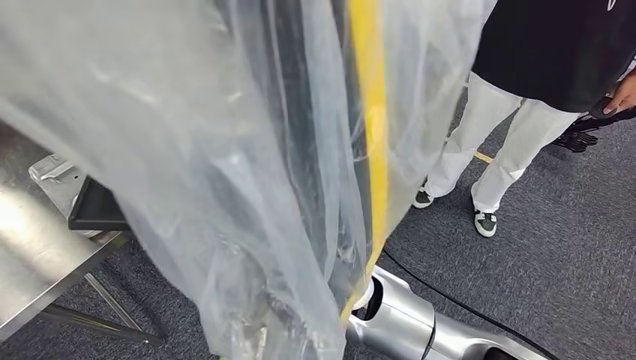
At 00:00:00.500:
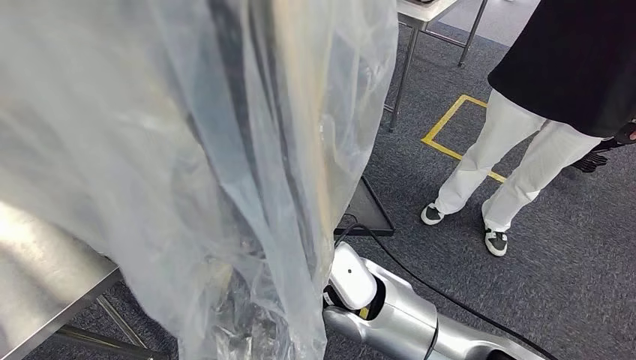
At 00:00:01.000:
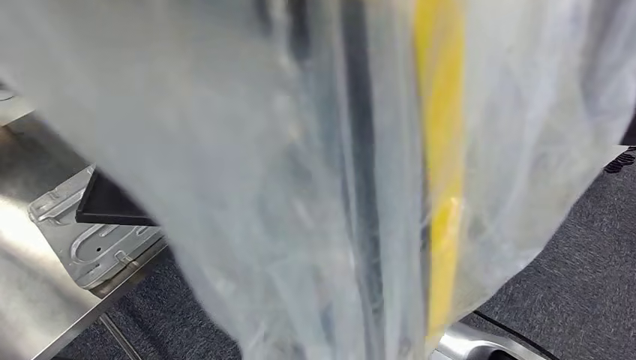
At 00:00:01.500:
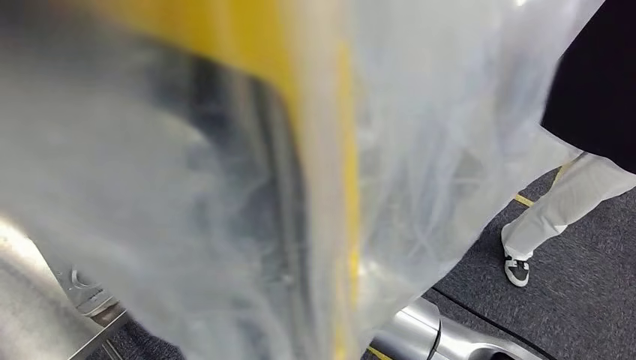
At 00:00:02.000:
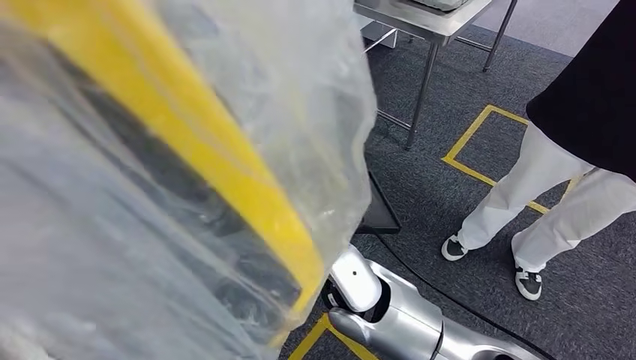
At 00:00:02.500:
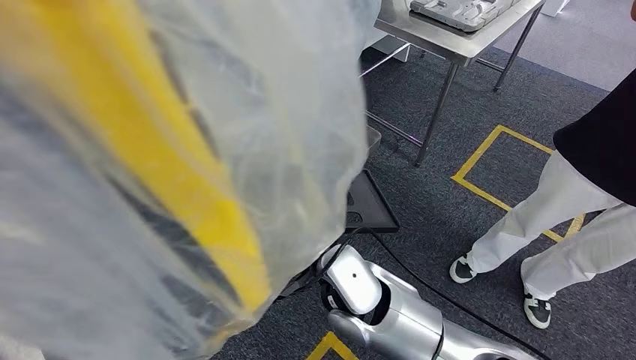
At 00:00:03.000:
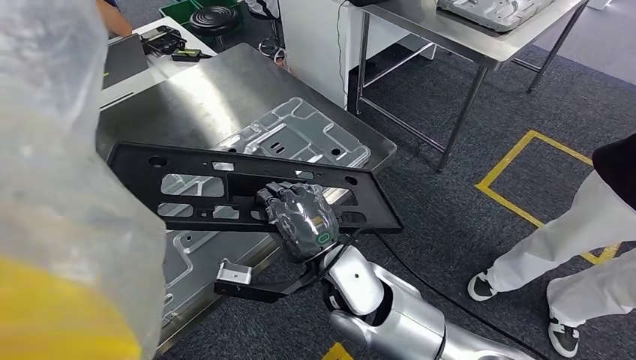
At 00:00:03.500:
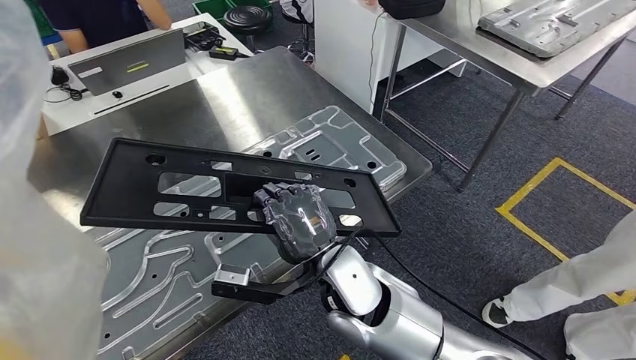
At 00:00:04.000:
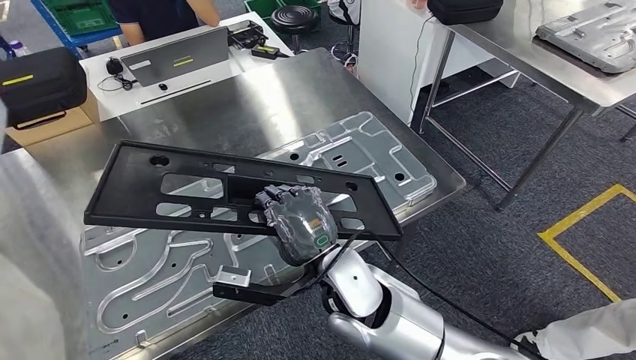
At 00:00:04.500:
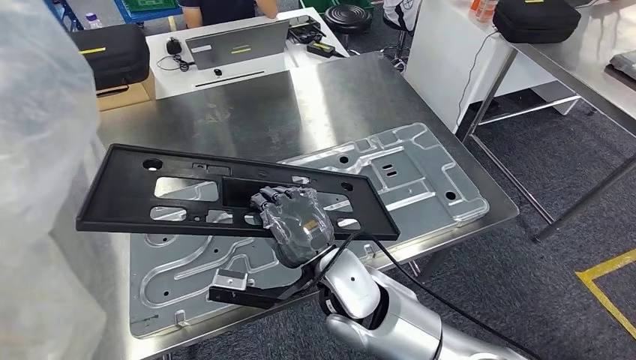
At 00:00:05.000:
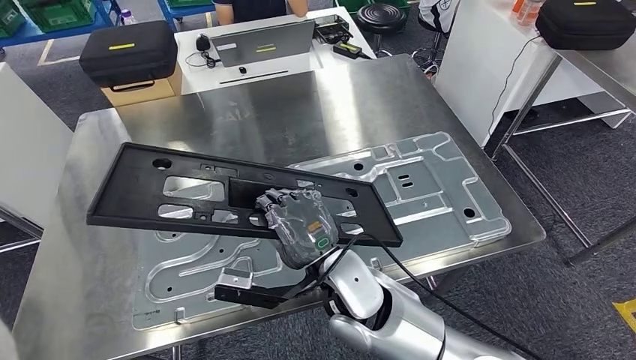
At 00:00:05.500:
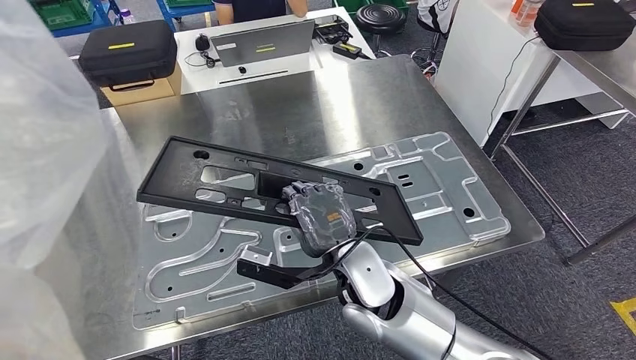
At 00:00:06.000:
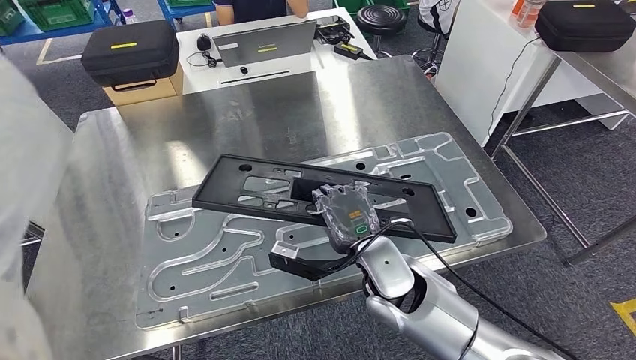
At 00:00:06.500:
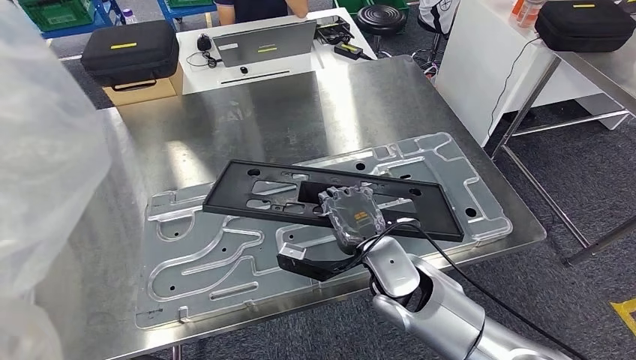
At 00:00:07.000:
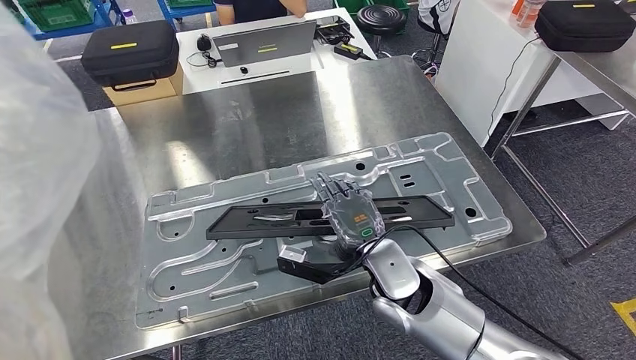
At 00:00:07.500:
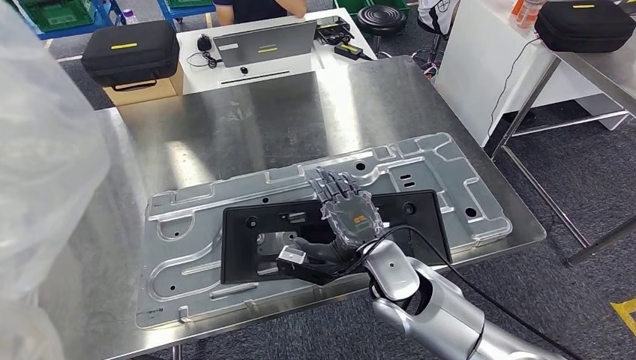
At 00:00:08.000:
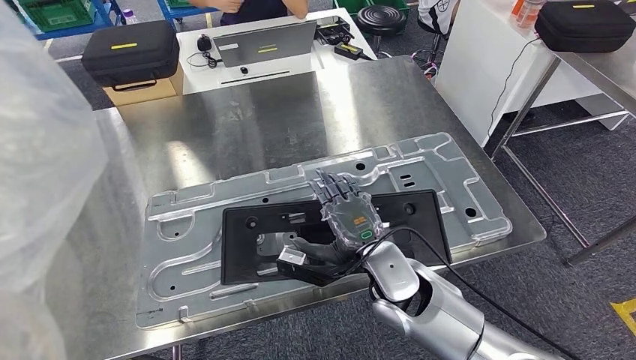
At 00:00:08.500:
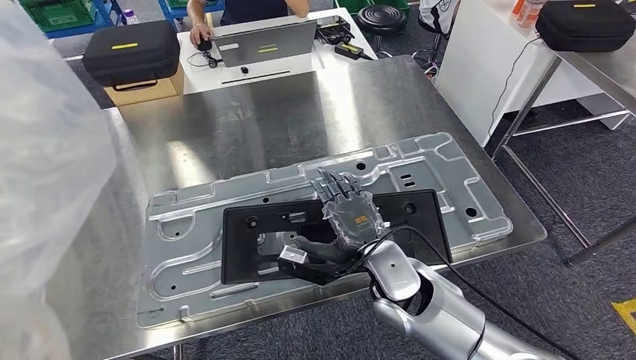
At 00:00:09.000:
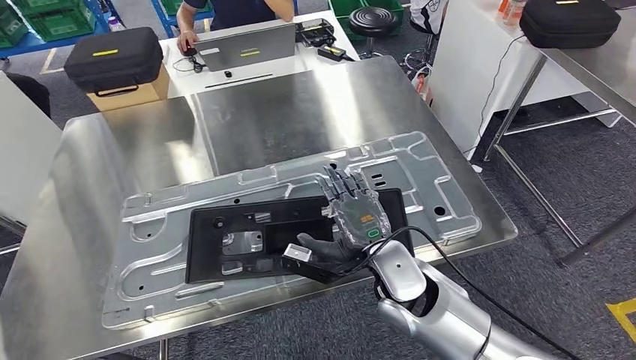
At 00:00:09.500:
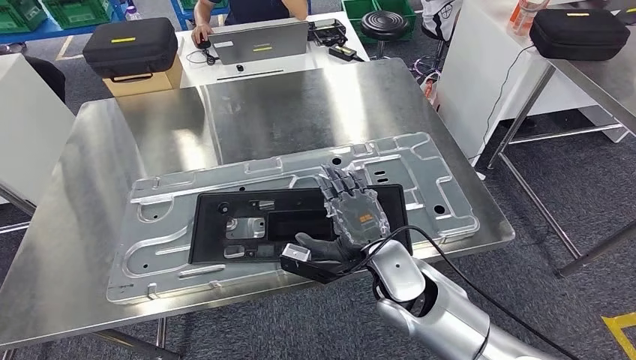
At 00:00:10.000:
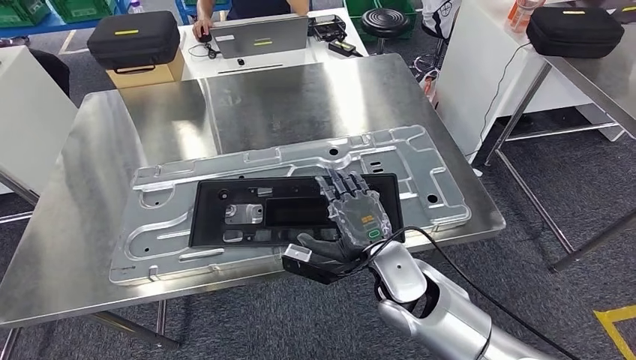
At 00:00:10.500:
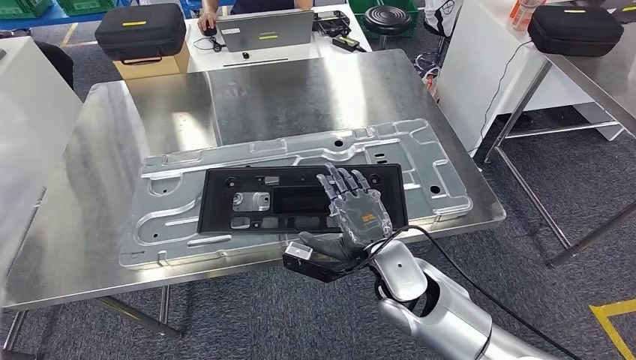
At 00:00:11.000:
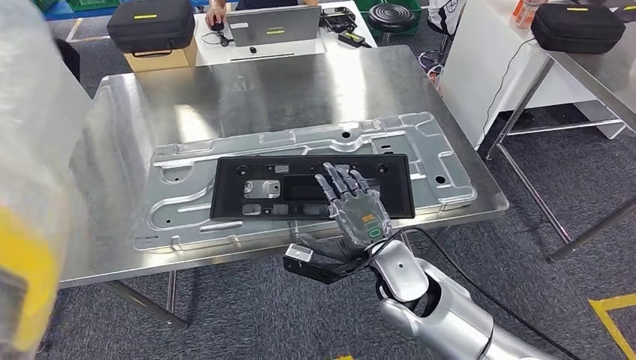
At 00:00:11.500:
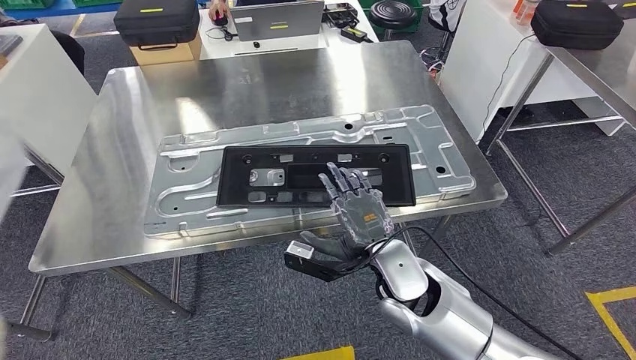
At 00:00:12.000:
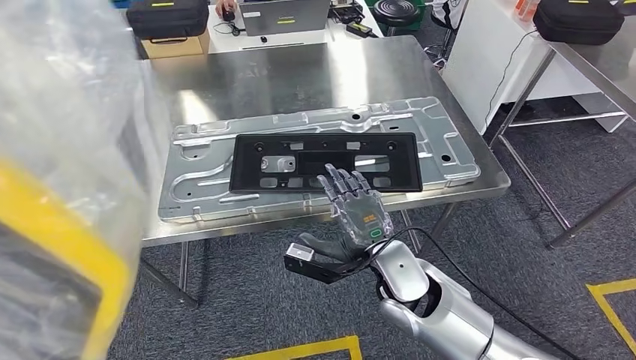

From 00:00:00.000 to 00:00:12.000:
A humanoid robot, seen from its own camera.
Step, from 00:00:03.000 to 00:00:10.000: Insert the large material into the corresponding slot on the workbench.
From 00:00:06.000 to 00:00:08.000: The hands move only a little.

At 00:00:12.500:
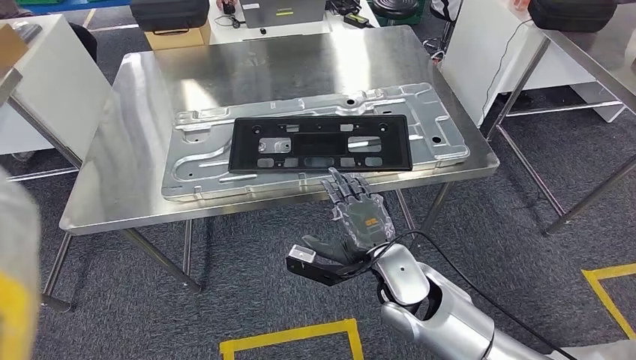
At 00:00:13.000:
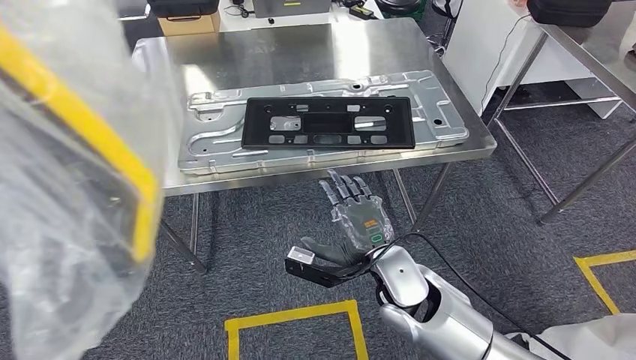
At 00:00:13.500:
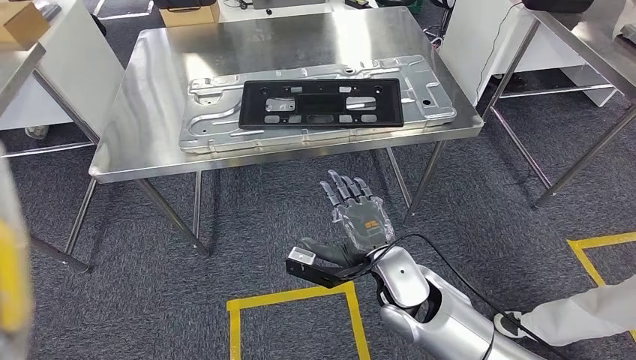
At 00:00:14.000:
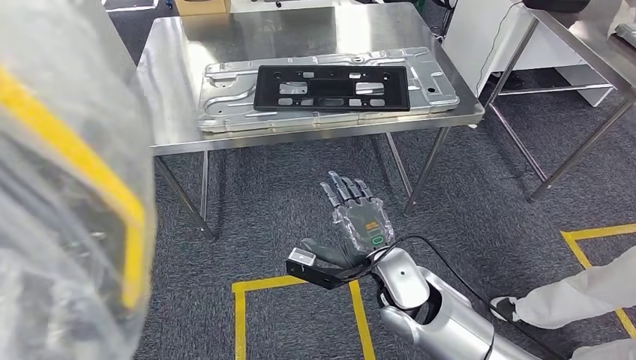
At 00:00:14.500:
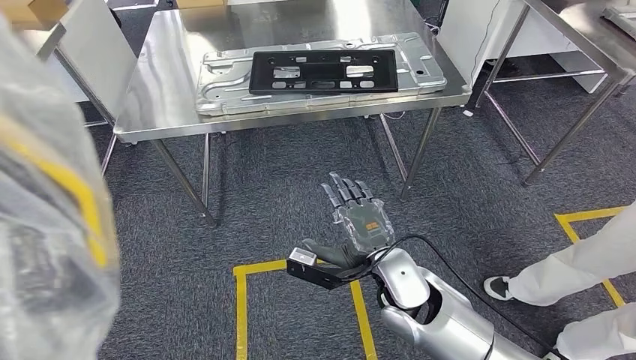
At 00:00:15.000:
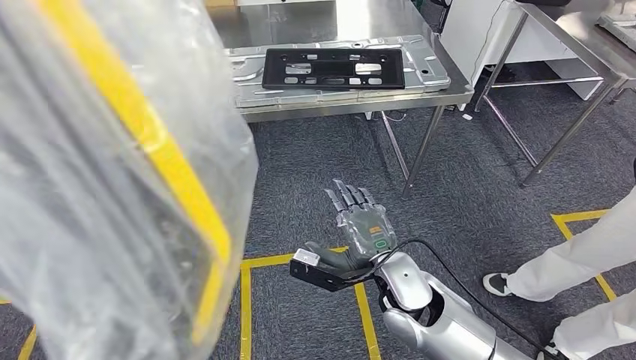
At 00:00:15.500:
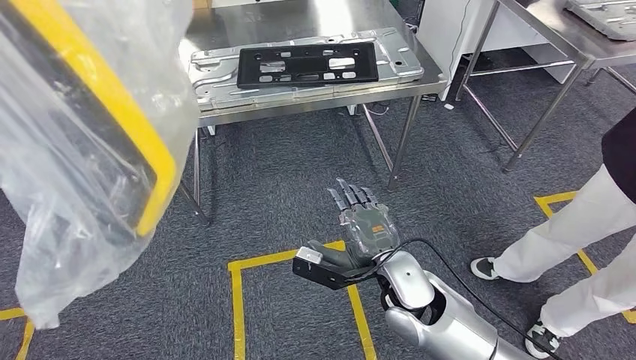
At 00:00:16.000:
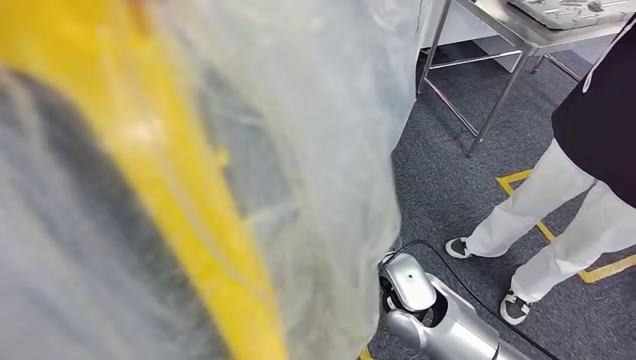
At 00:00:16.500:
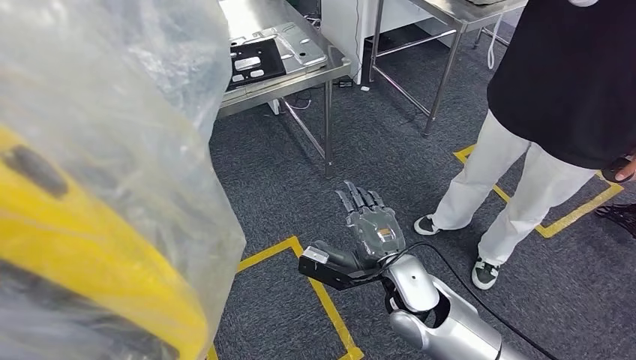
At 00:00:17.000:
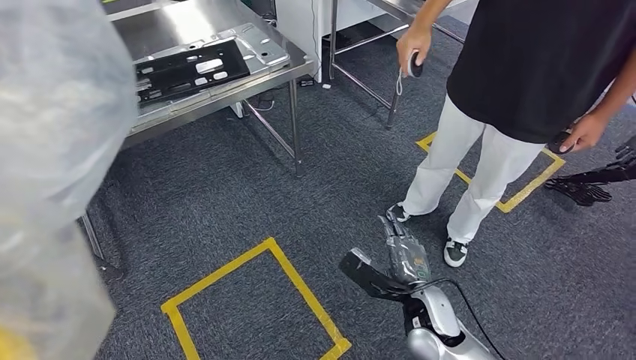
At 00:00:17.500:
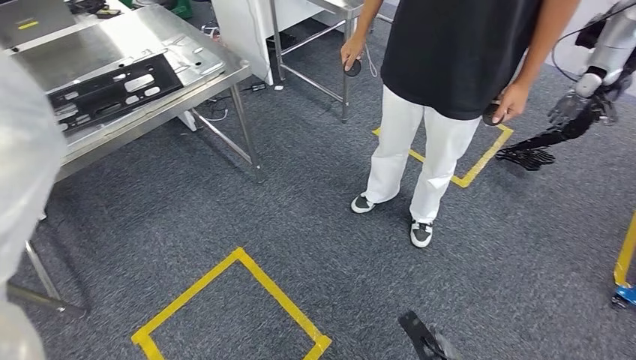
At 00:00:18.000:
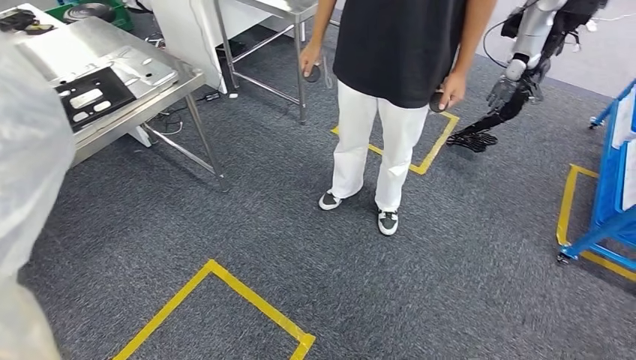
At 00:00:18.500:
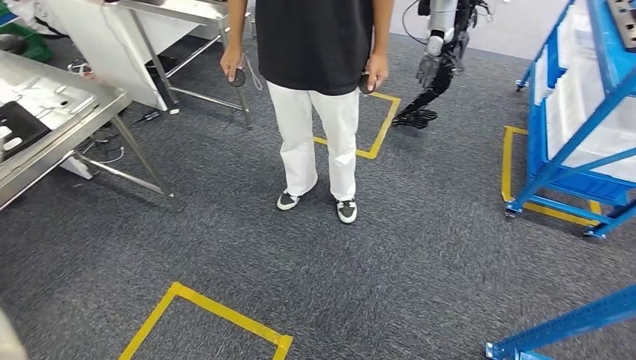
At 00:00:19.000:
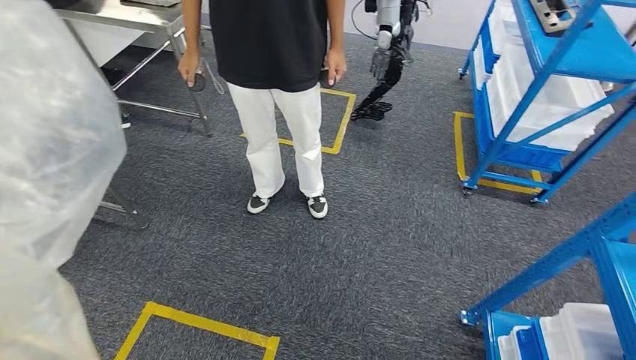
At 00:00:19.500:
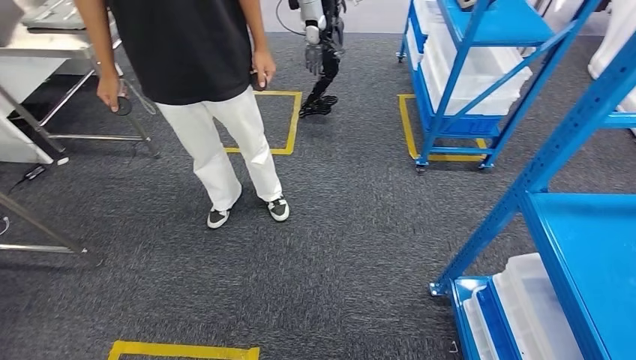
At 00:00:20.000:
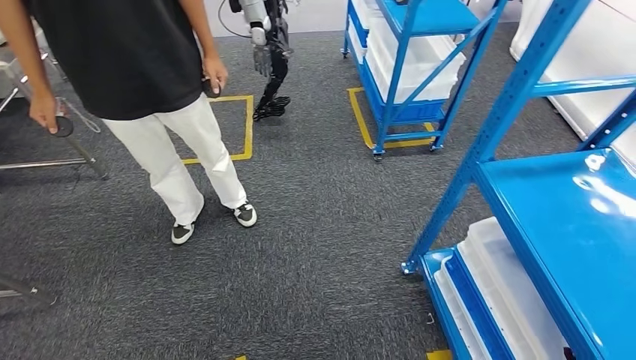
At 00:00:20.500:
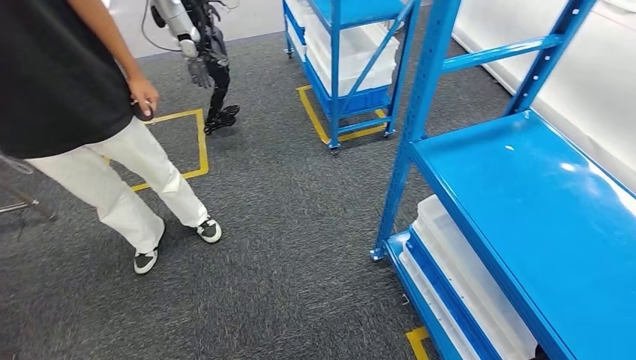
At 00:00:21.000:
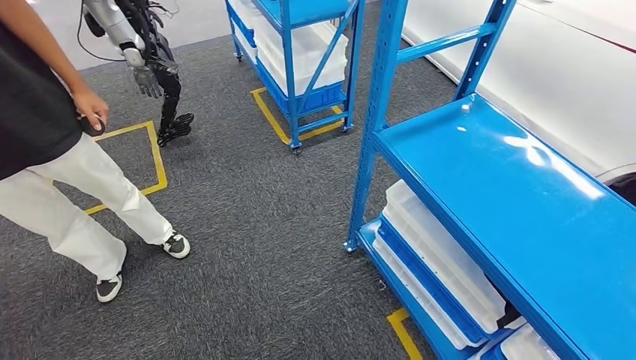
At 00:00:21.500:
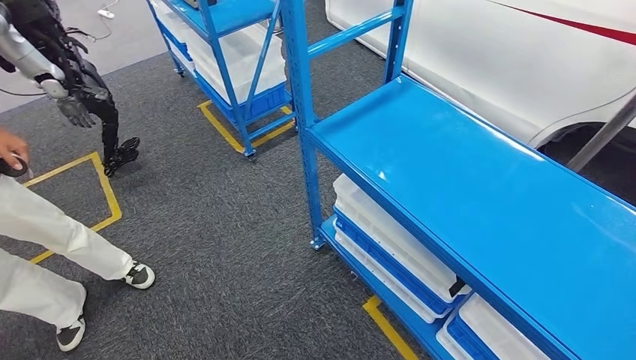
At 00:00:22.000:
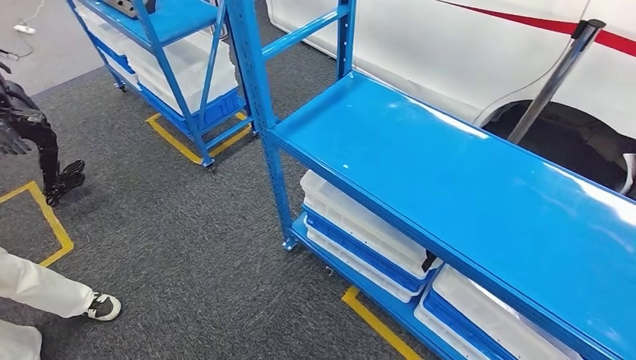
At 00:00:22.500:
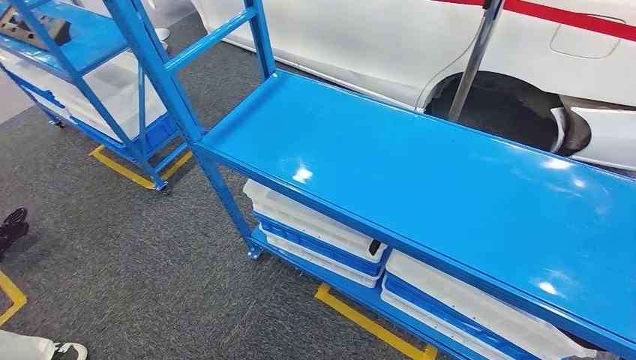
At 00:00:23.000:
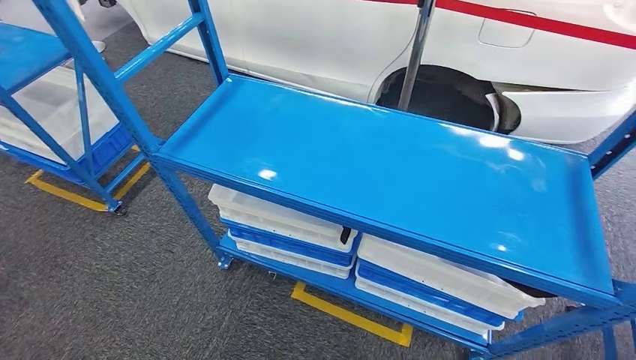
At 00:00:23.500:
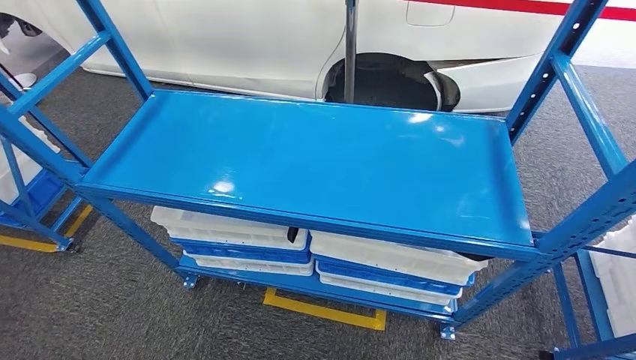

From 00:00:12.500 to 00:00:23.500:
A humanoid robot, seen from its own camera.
Step, from 00:00:12.500 to 00:00:23.500: Move to the initial position of the shelf.
